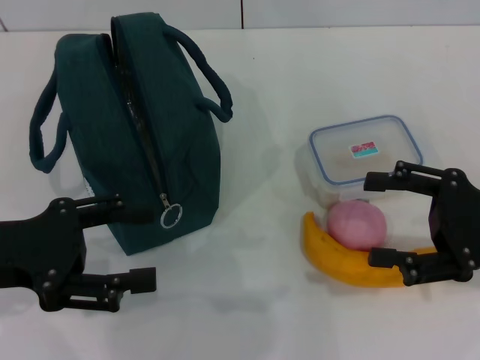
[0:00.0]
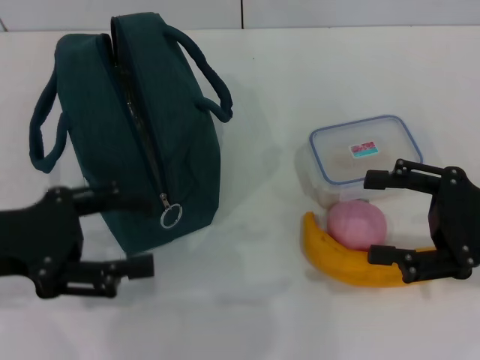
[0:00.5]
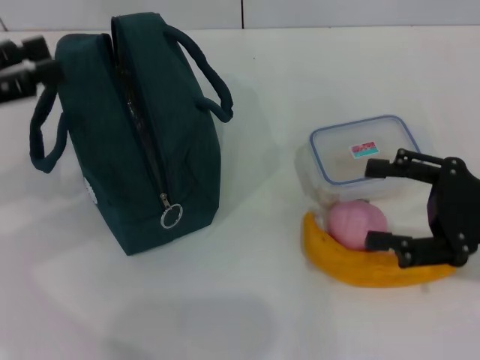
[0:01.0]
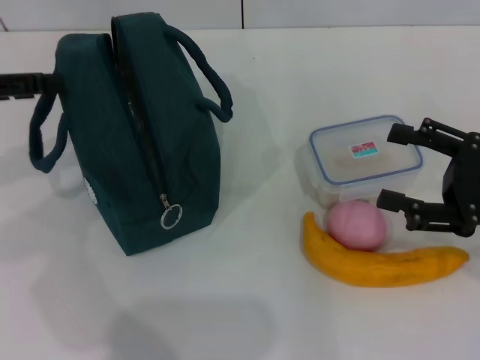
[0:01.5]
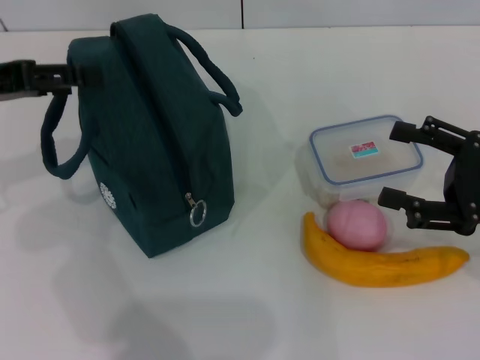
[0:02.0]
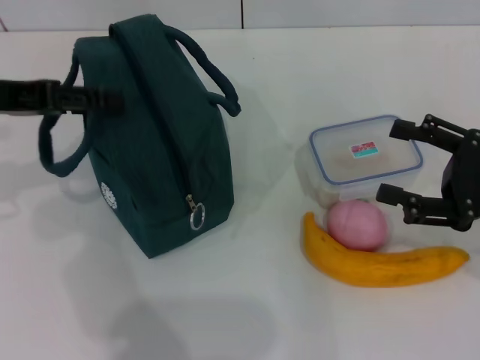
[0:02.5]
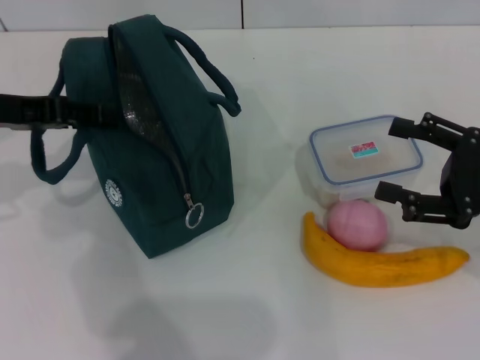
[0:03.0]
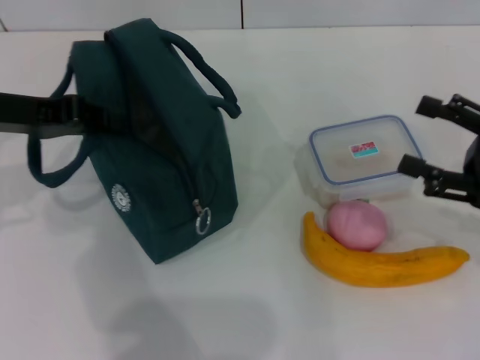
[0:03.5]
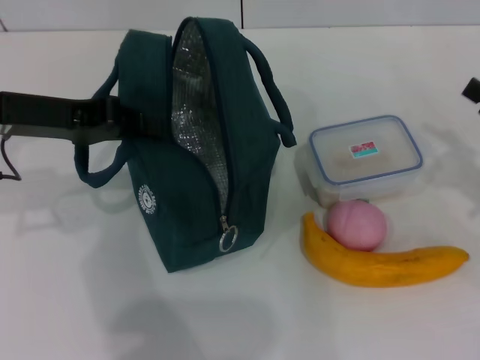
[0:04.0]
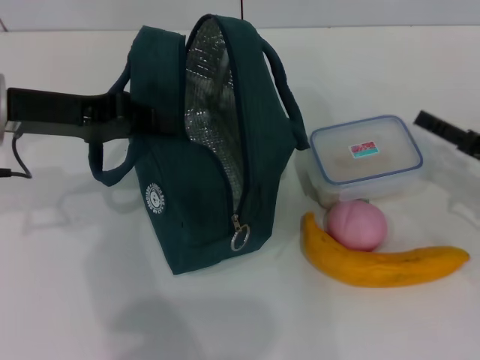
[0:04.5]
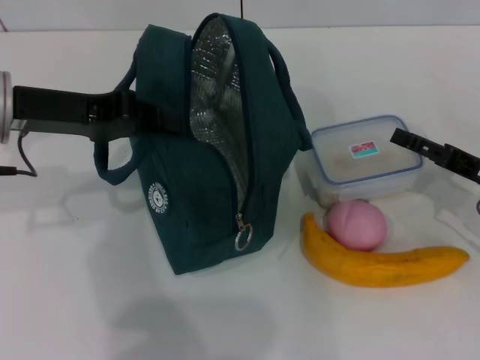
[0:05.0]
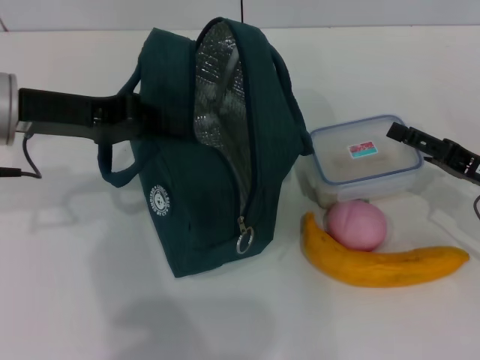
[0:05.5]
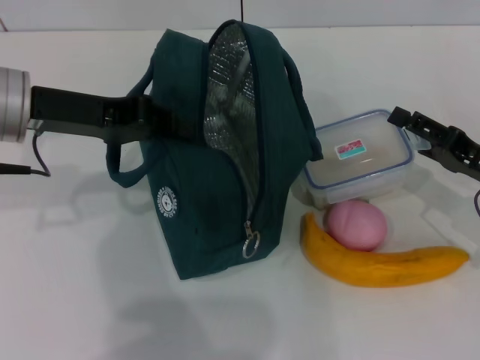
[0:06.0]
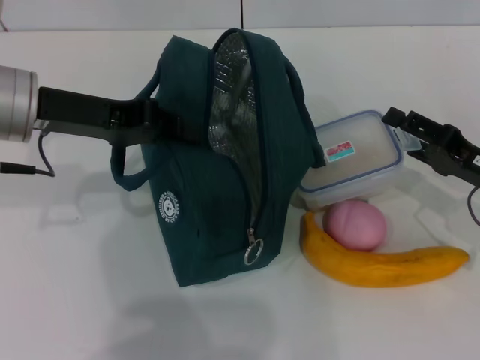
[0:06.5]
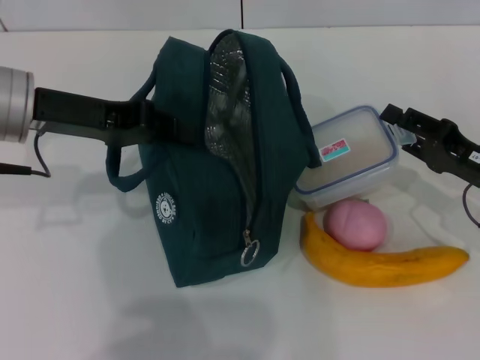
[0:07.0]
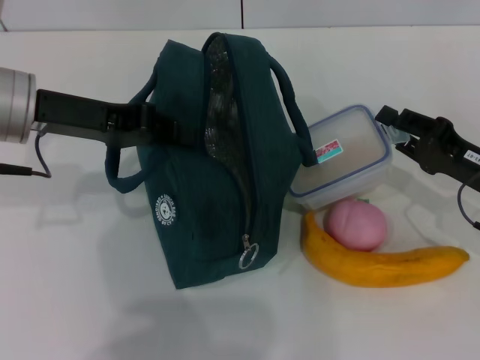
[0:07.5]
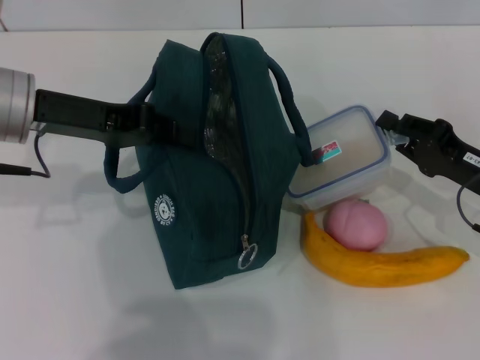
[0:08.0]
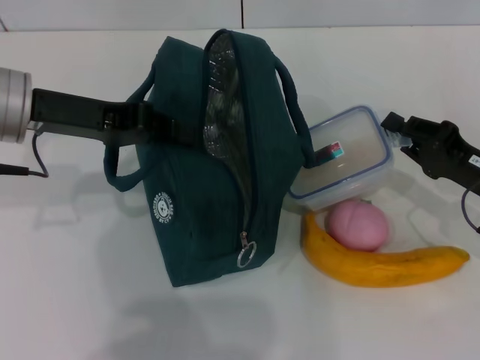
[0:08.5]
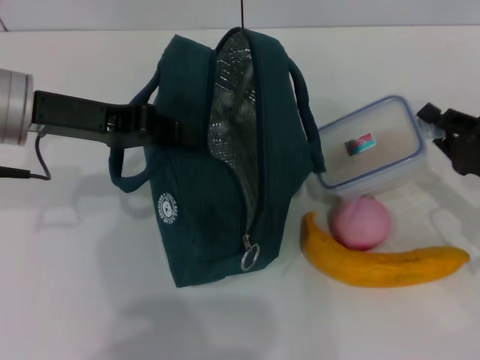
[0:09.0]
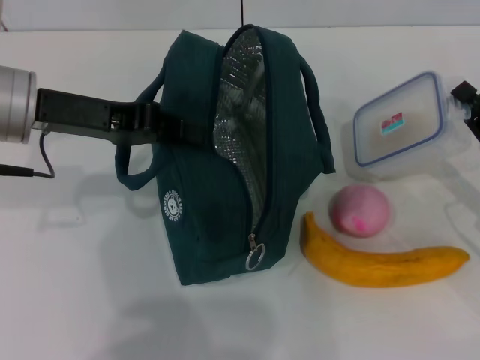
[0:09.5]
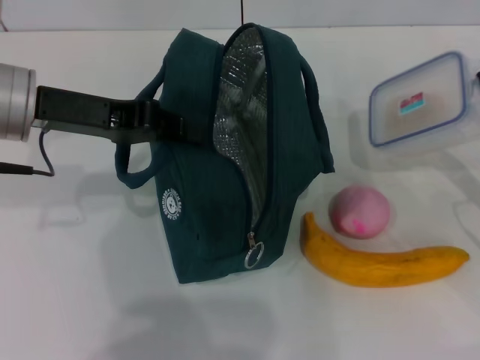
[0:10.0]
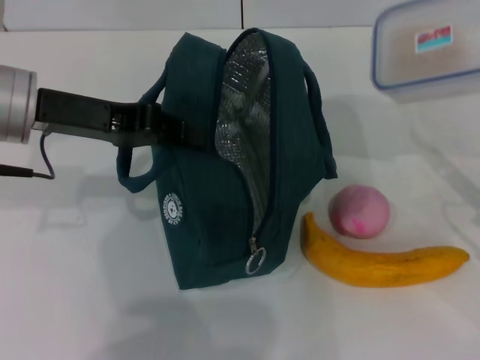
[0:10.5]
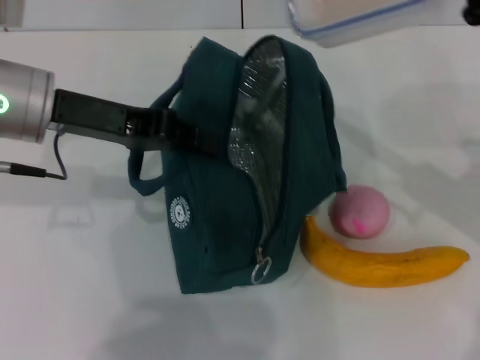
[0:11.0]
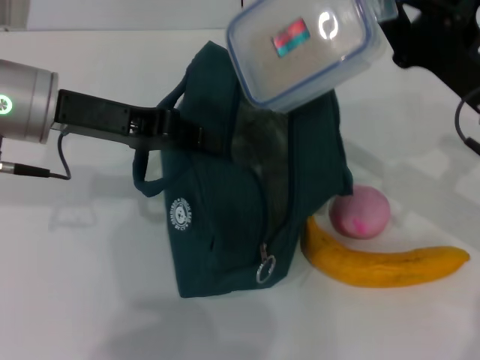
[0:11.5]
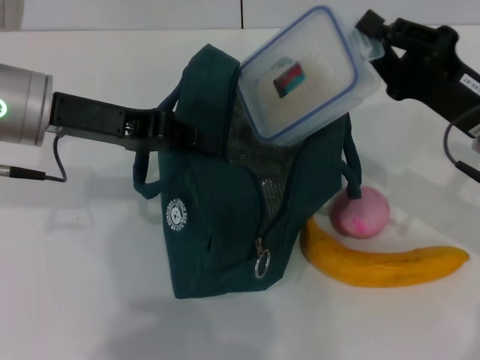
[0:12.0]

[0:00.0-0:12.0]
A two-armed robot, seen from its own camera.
Step, 0:00.0 to 0:03.0: Hold the lunch bag with your left hand.
Step, 0:03.5 to 0:08.0: Pick up the lunch box with your right hand.
0:00.0 to 0:02.0: The left gripper shifts roughly 10 cm forward and upward.
0:02.0 to 0:04.0: Both grippers travel together to the right, roughly 5 cm. The left gripper closes up.
0:04.0 to 0:06.0: The right gripper is displaced to the left by approximately 5 cm.
0:06.0 to 0:08.0: The right gripper closes.
0:08.0 to 0:10.0: The right gripper moves about 5 cm.
0:10.0 to 0:12.0: The right gripper moves to the left, approximately 10 cm.

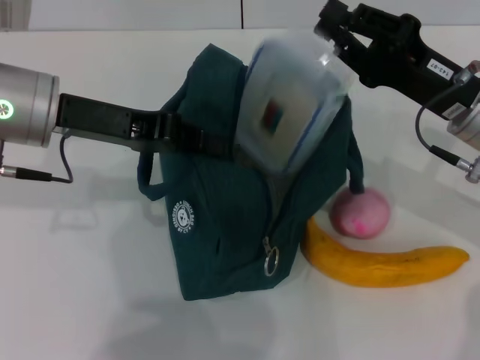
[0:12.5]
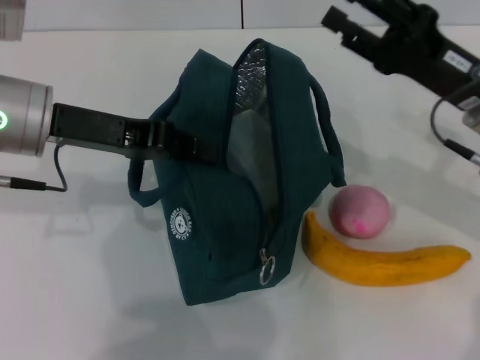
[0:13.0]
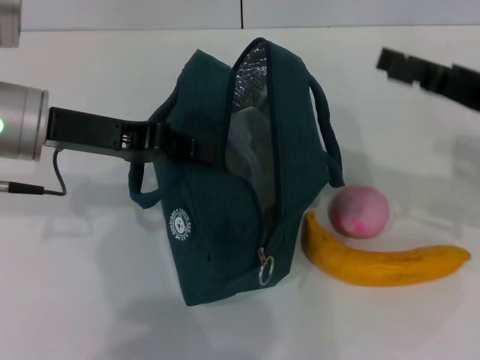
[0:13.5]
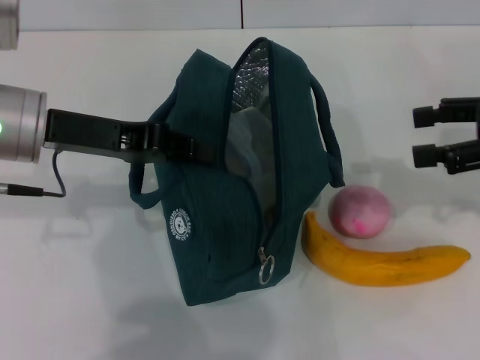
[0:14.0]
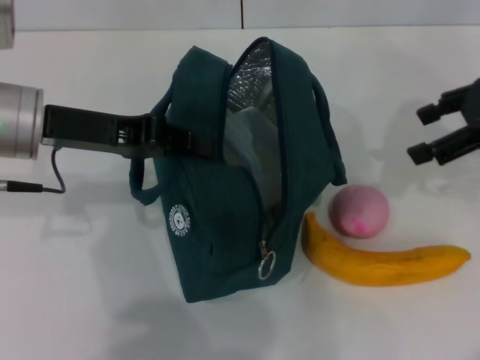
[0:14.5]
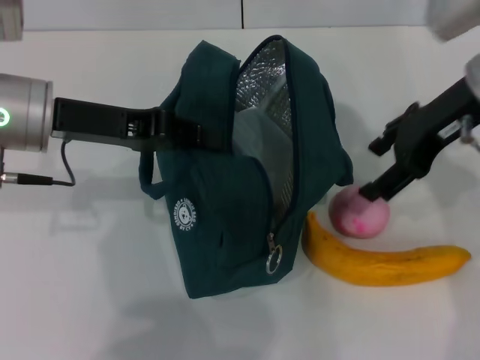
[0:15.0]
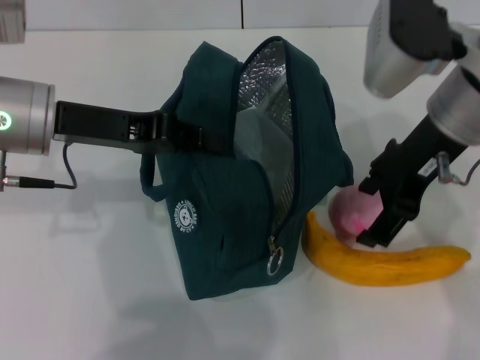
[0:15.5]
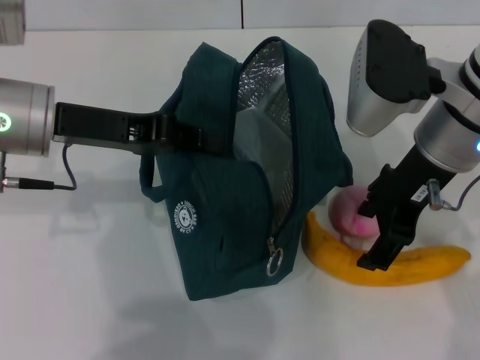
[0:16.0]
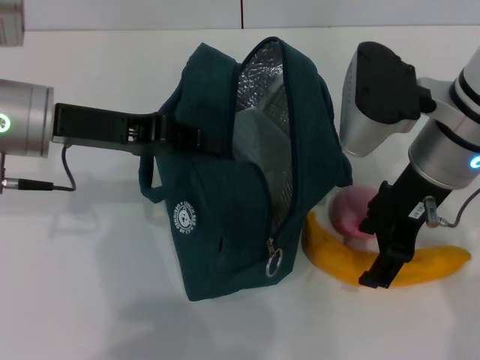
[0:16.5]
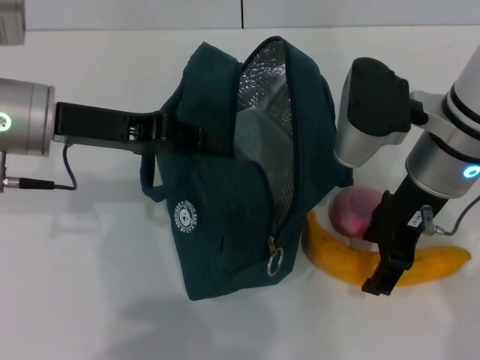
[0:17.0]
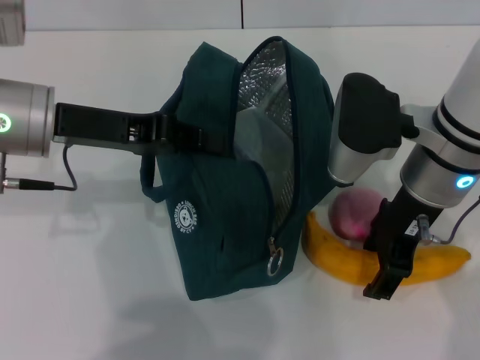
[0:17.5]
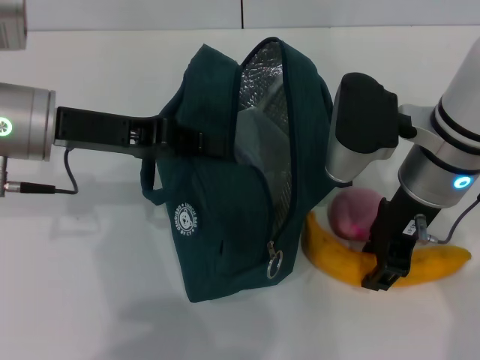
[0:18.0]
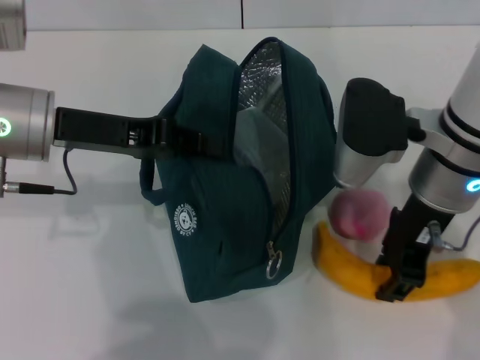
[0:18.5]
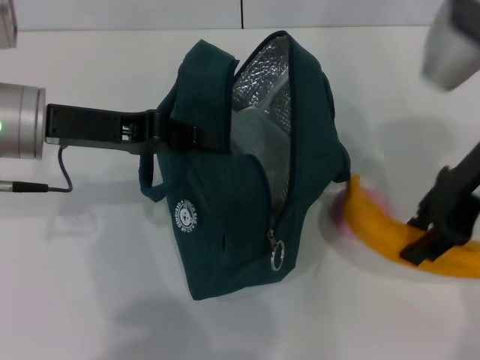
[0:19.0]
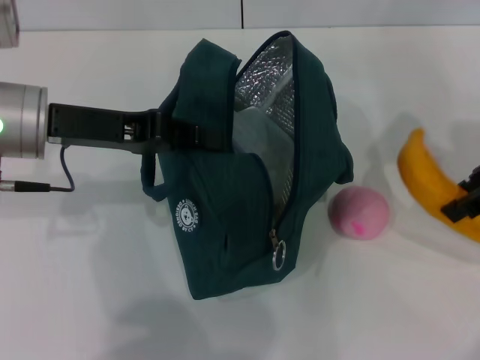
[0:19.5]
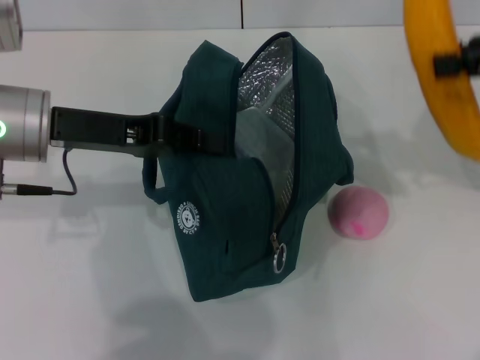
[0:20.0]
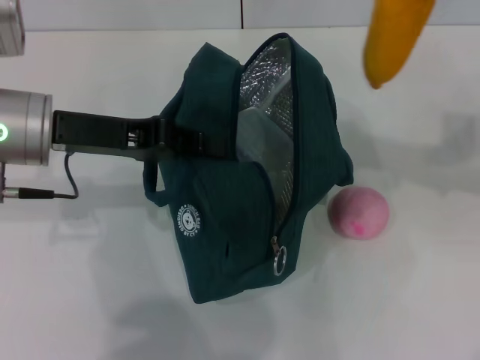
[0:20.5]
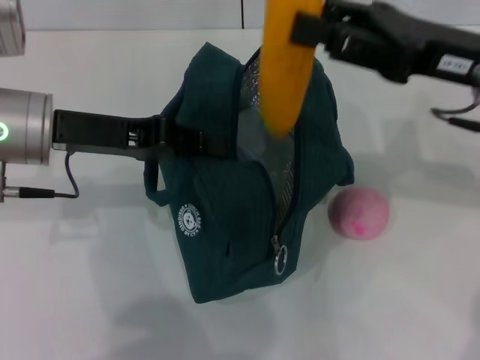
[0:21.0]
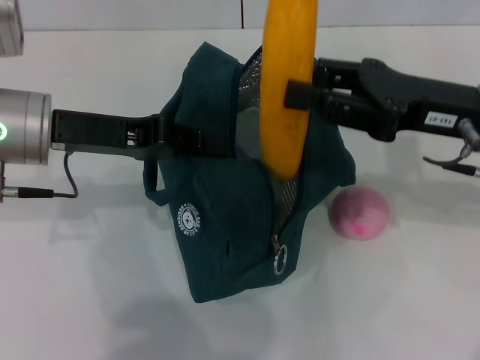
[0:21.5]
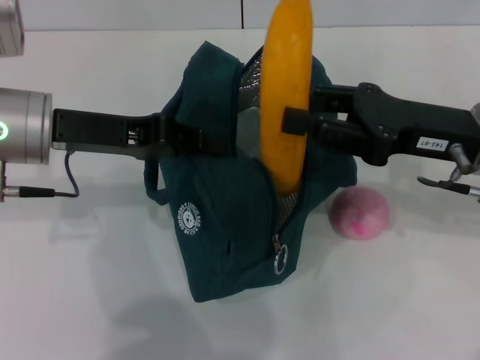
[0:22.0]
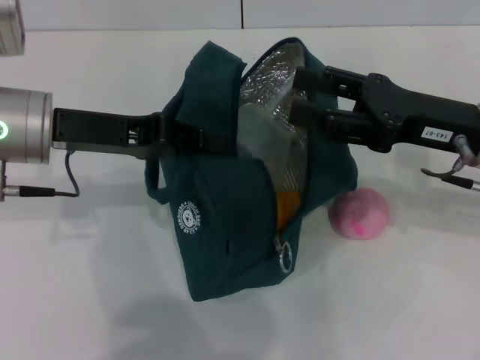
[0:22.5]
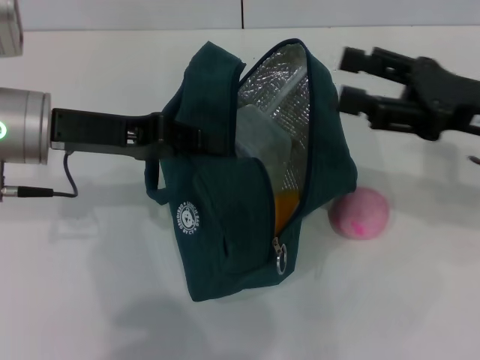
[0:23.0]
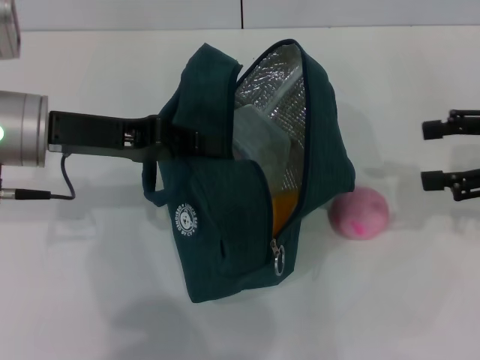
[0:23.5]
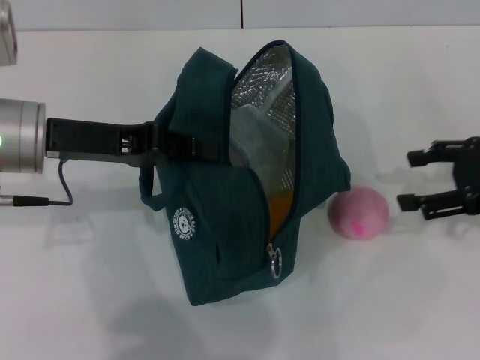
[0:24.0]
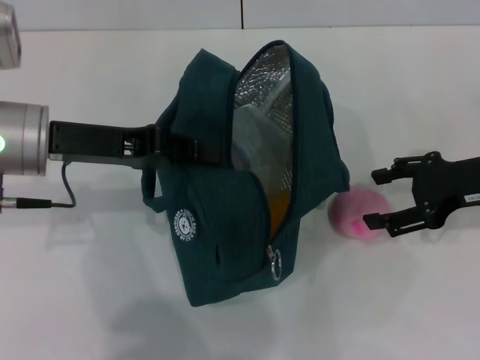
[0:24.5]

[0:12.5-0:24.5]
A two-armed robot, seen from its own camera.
Step, 0:13.5 to 0:18.0: Take the banana with your right hand.
Step, 0:18.5 to 0:22.5: Put the banana into the lunch bag with your right hand.
0:12.5 to 0:14.5: The right gripper travels upward and to the right by some 15 cm, and opens.
0:14.5 to 0:16.5: The right gripper is displaced to the left by roughly 15 cm.
0:16.5 to 0:18.5: The right gripper closes up.
0:18.5 to 0:20.5: The right gripper is displaced to the right and upward by some 15 cm.
0:20.5 to 0:22.5: The right gripper shifts some 10 cm downward and to the left.
0:22.5 to 0:24.5: The right gripper is displaced to the right by some 5 cm.

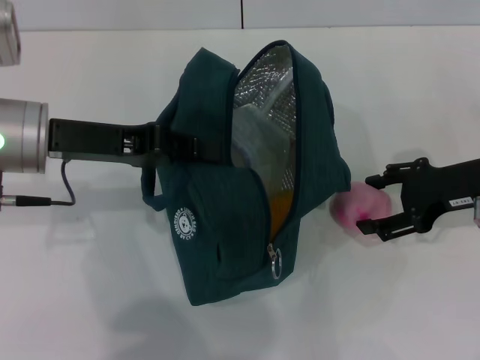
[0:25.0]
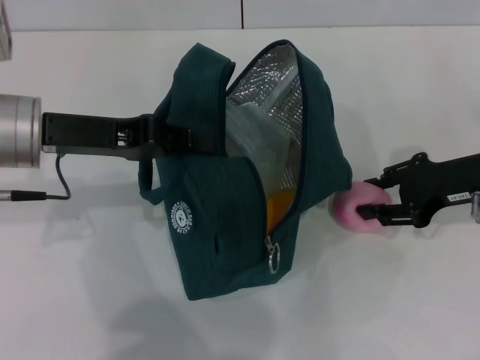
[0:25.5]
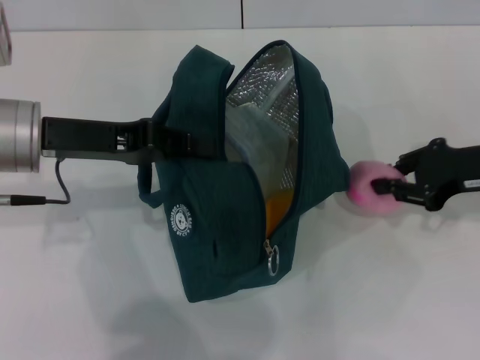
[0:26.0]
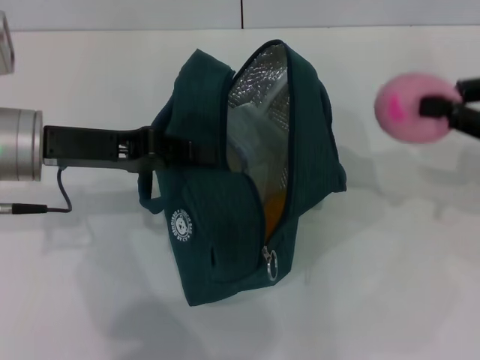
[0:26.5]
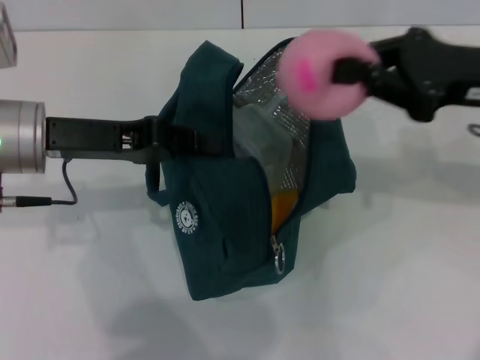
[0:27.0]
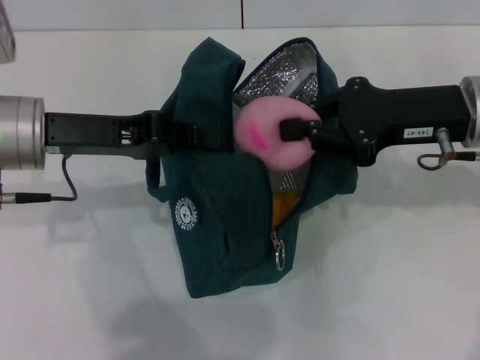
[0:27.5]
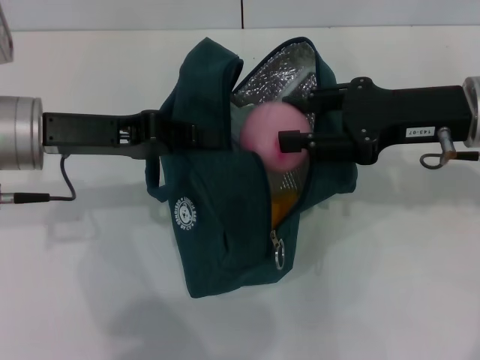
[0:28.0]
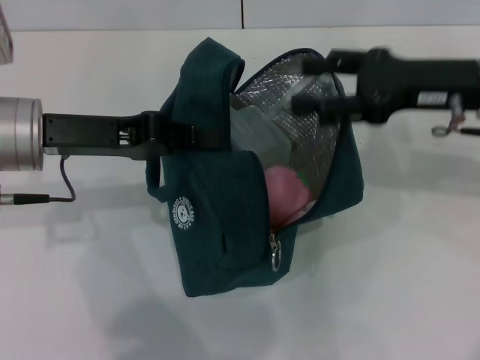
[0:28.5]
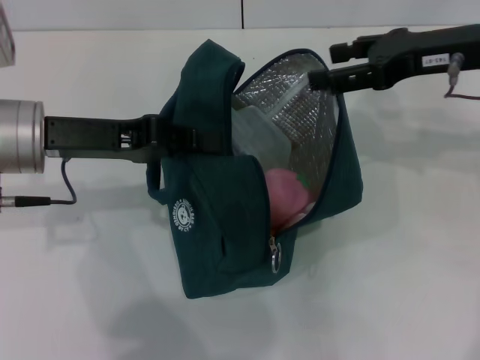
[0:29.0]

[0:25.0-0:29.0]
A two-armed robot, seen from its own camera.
0:25.0 to 0:27.0: The right gripper shifts approximately 10 cm upward, and closes.
0:27.0 to 0:29.0: The right gripper changes place by about 5 cm, and opens its fingers.
